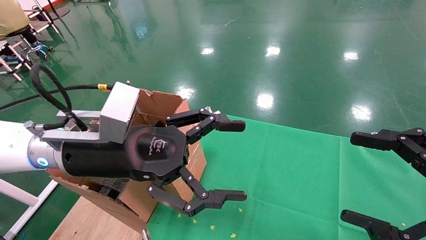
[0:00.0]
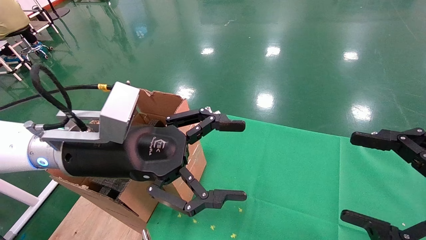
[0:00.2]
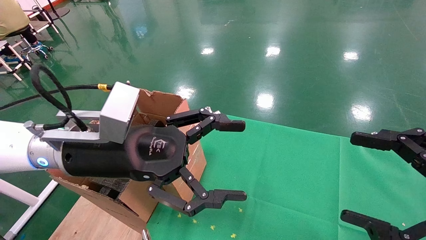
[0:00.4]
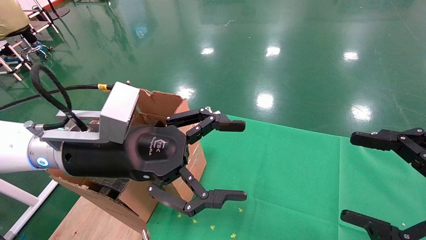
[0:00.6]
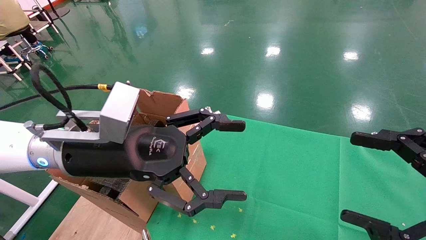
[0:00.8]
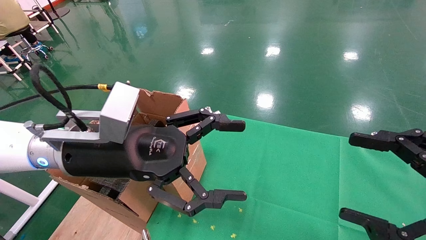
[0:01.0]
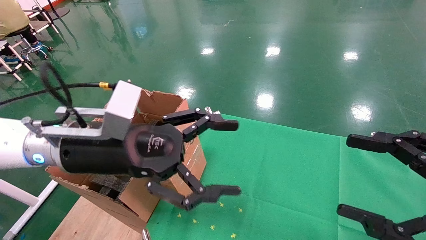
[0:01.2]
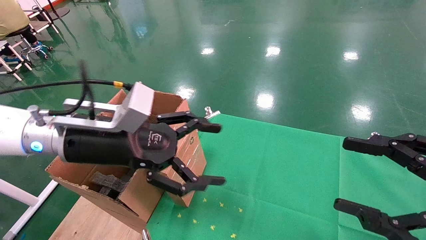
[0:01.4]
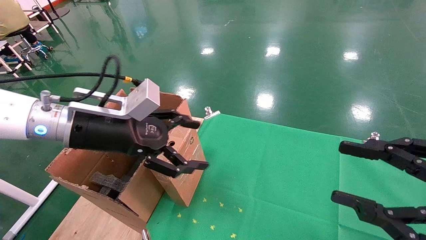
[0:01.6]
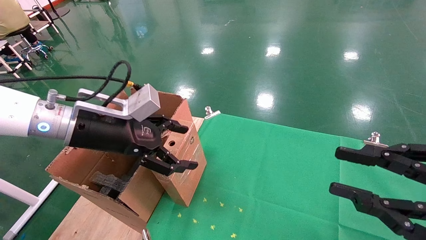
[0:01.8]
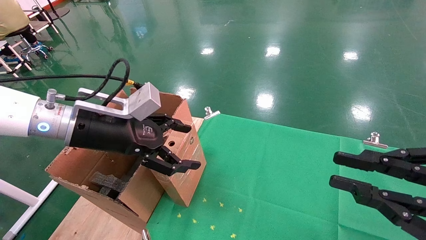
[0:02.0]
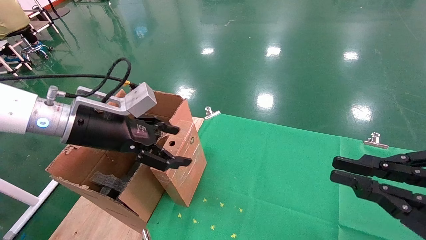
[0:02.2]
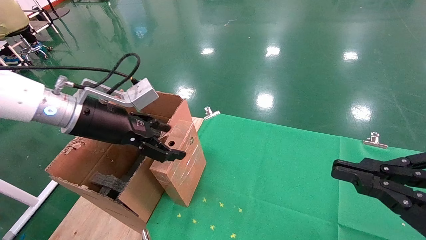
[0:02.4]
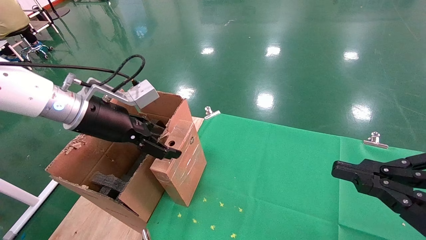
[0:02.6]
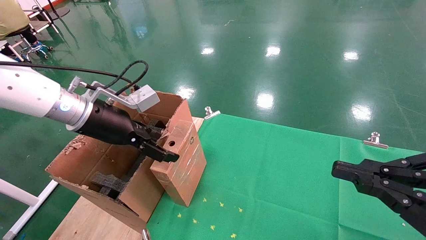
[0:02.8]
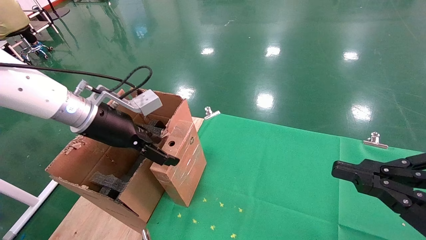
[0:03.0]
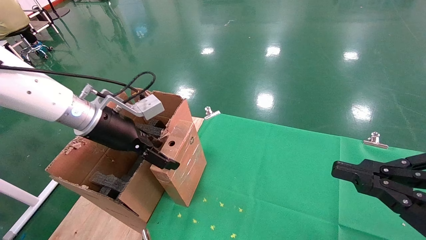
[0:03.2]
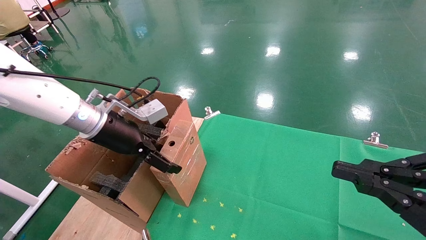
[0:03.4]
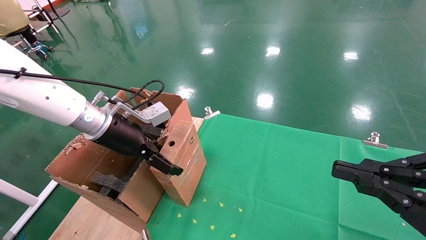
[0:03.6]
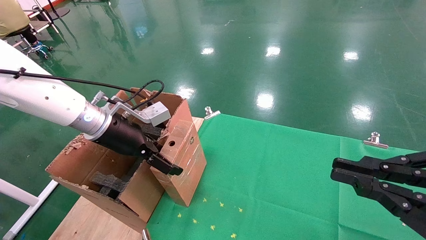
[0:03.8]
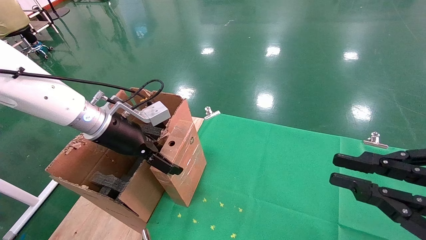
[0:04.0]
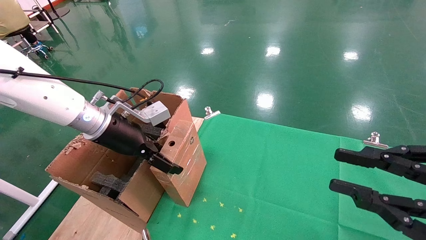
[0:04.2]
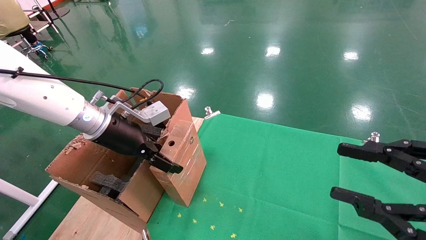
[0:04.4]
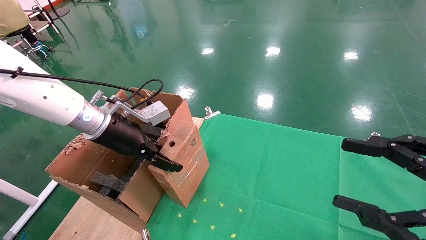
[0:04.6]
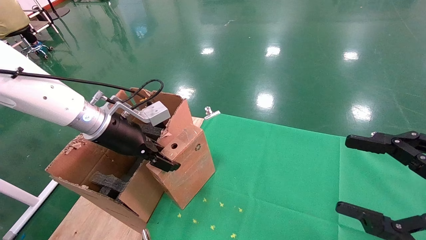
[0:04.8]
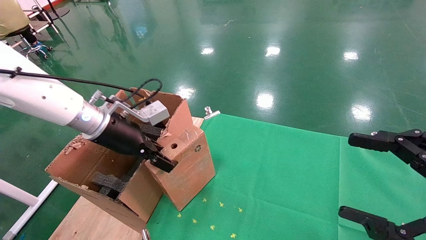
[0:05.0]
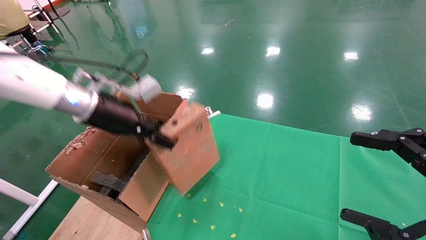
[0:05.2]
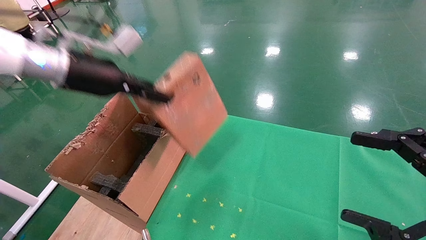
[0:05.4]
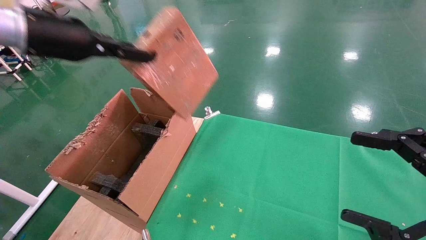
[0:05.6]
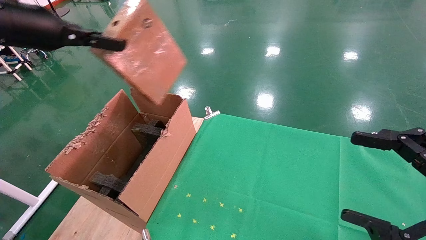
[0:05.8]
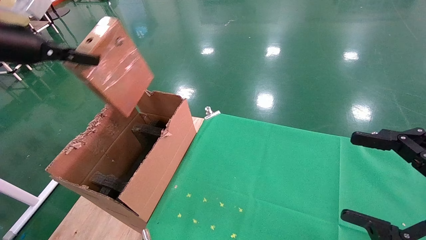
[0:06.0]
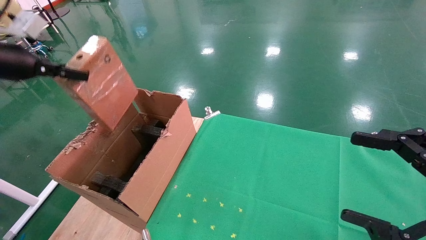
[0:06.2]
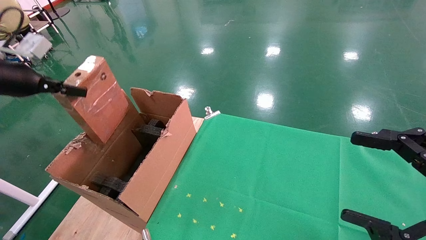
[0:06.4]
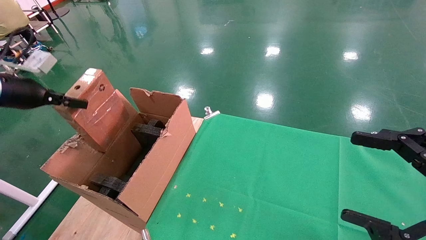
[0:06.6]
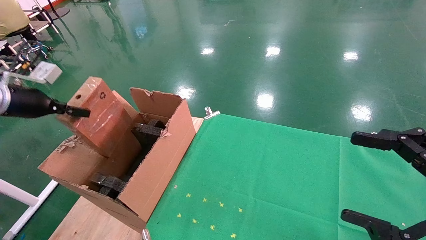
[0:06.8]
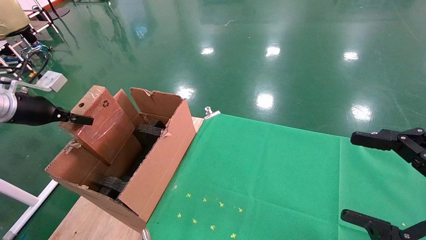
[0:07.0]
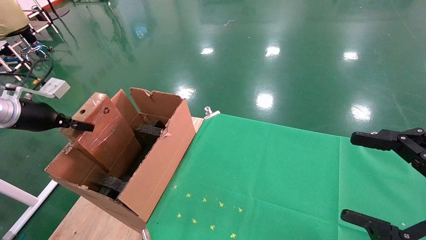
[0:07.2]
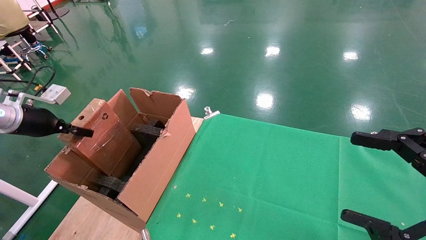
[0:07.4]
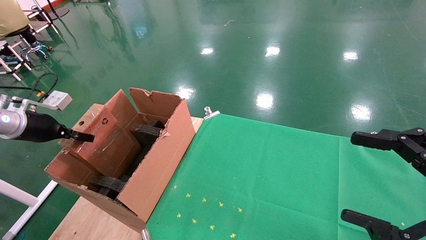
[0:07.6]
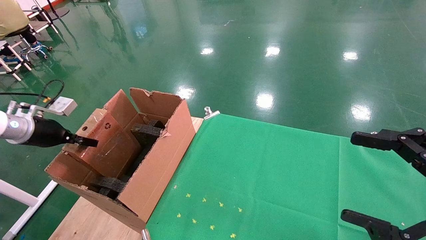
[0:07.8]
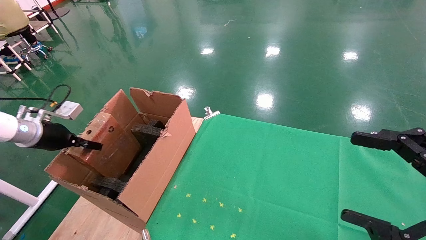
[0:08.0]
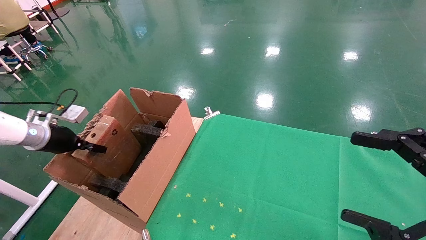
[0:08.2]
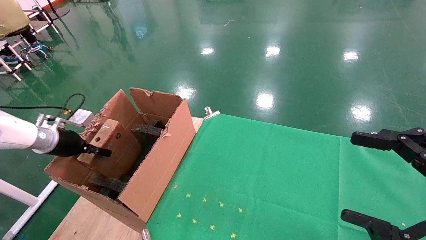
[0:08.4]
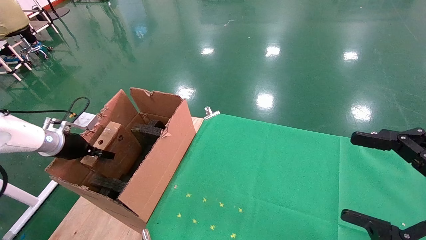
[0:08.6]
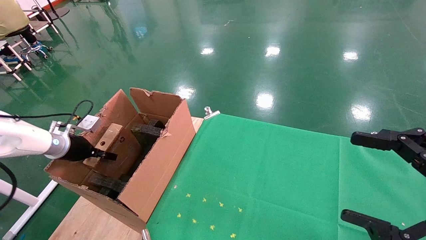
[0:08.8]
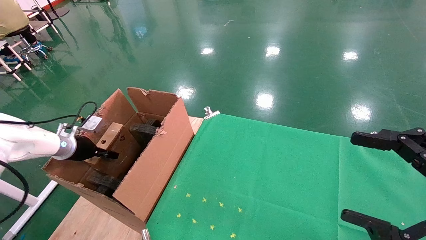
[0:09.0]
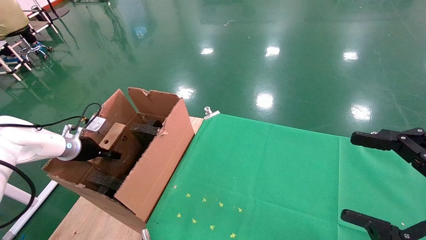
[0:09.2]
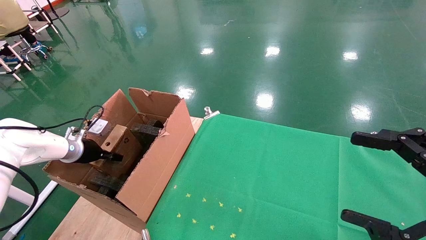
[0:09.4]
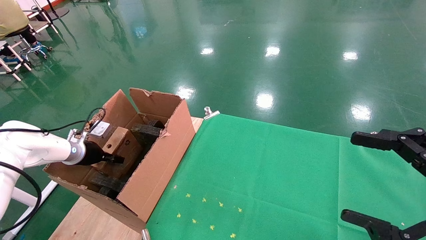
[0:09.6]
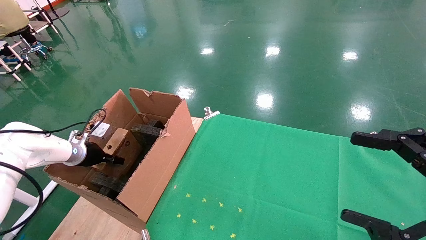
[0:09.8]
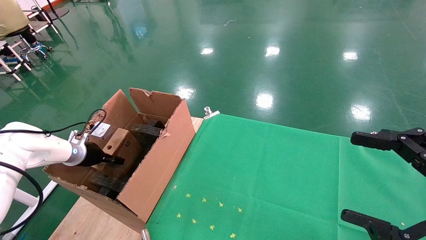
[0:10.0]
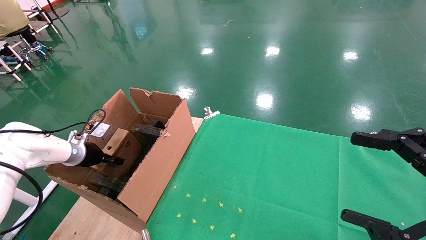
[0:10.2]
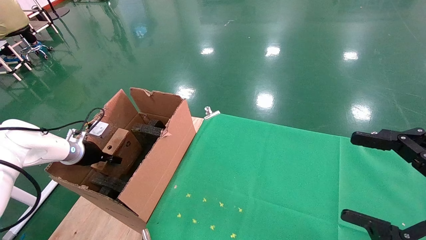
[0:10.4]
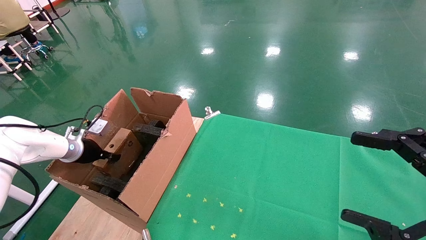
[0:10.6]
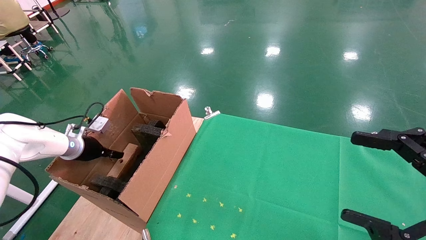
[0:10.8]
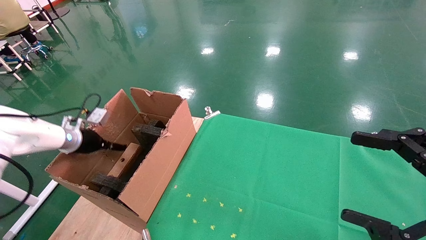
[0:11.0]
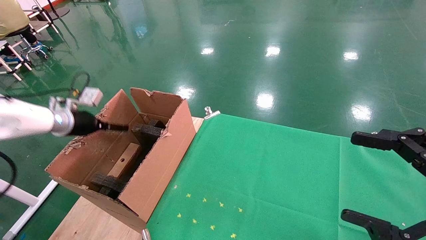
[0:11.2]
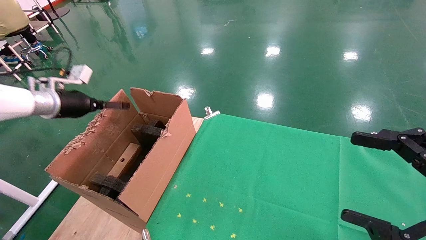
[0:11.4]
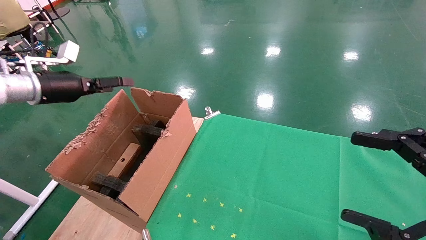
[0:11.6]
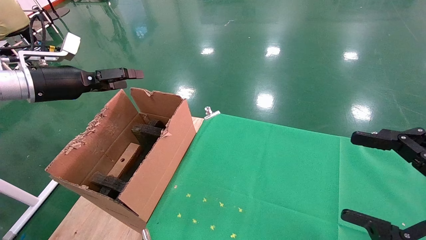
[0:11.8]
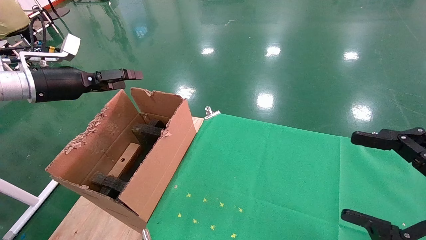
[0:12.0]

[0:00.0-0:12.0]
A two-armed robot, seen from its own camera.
Task of the whole recording: using a robotic arm to pick up a cardboard box and palace it the carton.
Step, 0:01.2 to 0:04.8: Pick up the mouse and the power cord paper box.
Step, 0:05.0 to 0:11.2: Place the mouse and the power cord paper box into the container.
0:00.0 to 0:01.6: The right gripper closes its fingers. The left gripper changes place by about 5 cm.
0:01.6 to 0:03.0: The right gripper closes up, while the left gripper travels forward by some 5 cm.
0:03.0 to 0:04.4: The right gripper opens.
0:04.4 to 0:06.0: The right gripper opens its fingers. The left gripper heads to the left and upward, covering about 25 cm, and closes.
0:06.0 to 0:07.6: The left gripper heads downward and to the left, covering approximately 20 cm.
0:07.6 to 0:09.0: The left gripper heads downward and forward, covering about 10 cm.
0:09.0 to 0:10.4: The grippers stay close to where they were, moving slightly.
0:10.4 to 0:12.0: The left gripper goes about 20 cm upward, and opens up.

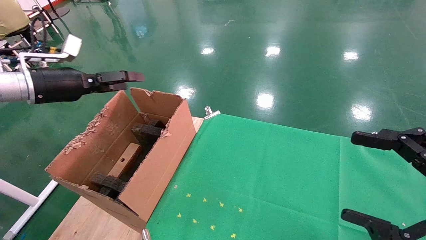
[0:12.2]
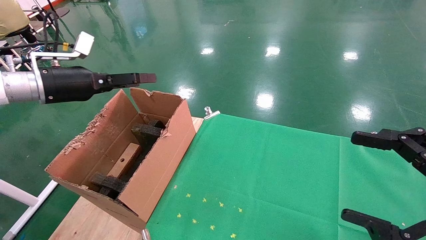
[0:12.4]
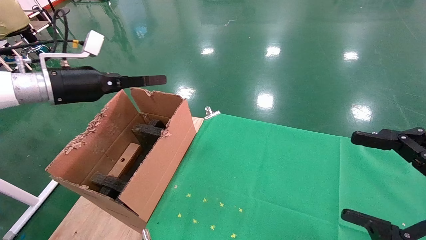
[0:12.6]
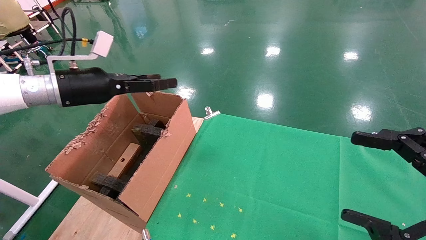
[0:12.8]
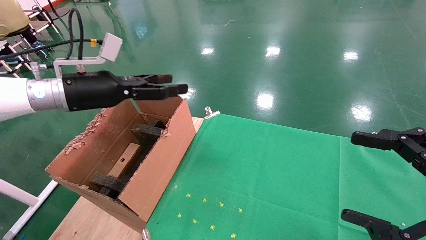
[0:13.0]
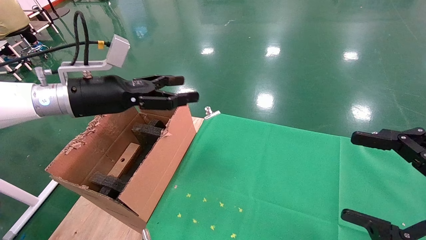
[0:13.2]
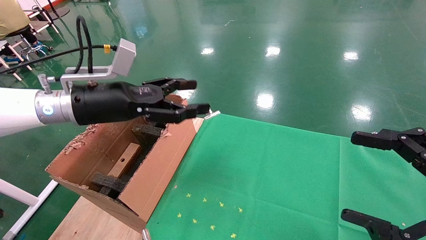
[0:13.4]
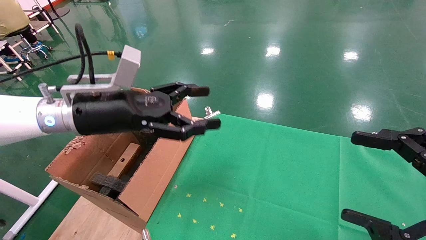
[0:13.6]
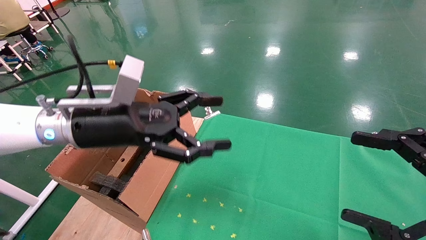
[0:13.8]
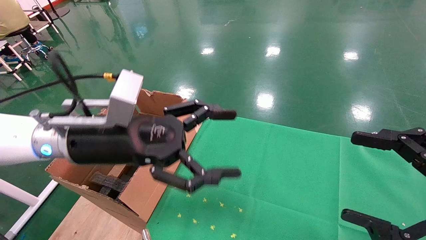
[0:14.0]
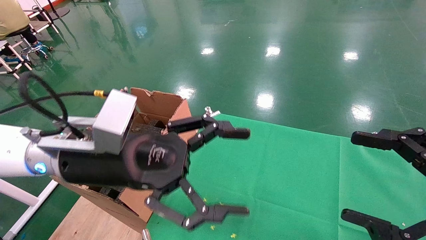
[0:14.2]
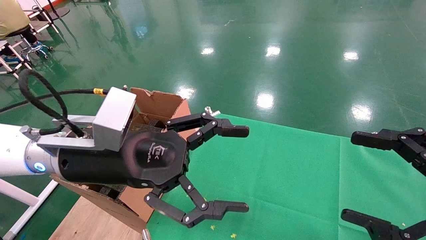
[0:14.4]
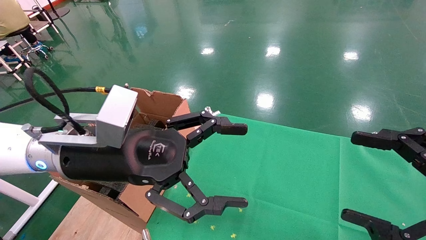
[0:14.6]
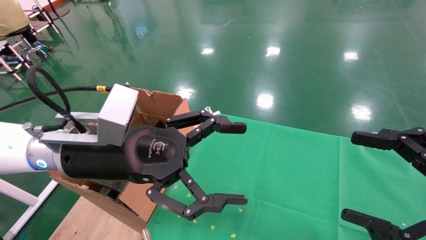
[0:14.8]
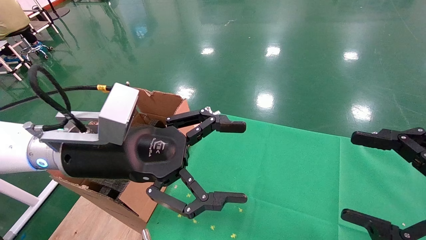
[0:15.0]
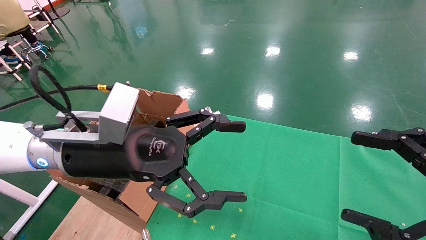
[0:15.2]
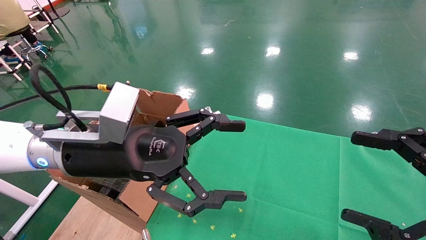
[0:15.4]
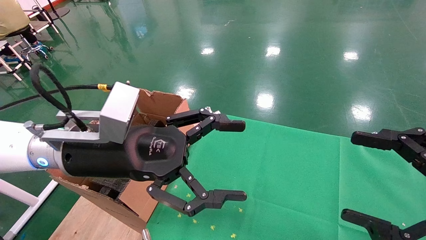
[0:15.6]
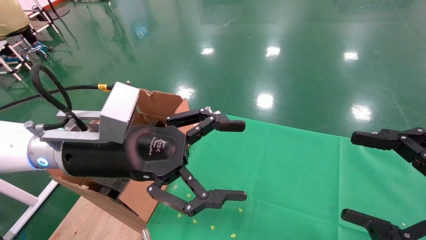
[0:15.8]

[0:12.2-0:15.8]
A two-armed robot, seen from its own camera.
Task of the whole recording: using a robotic arm to pick up a cardboard box and palace it the carton.
0:12.2 to 0:14.0: The left gripper heads to the right and backward, covering roughly 25 cm.
0:14.0 to 0:15.8: The grippers move only a little.
